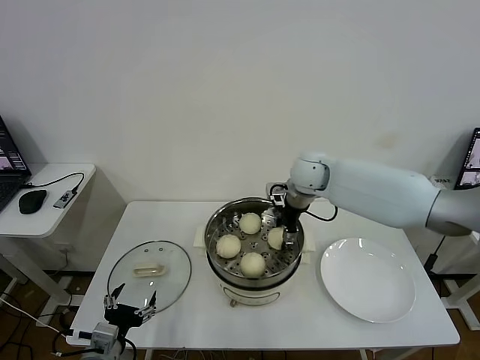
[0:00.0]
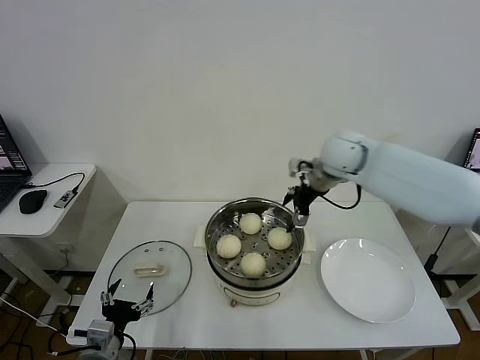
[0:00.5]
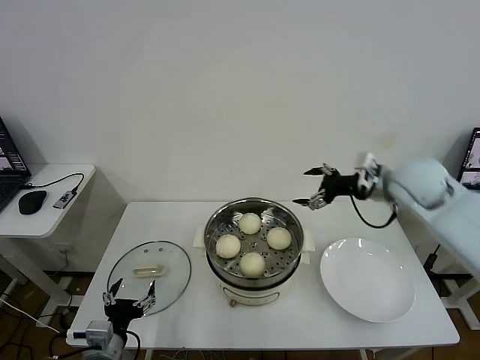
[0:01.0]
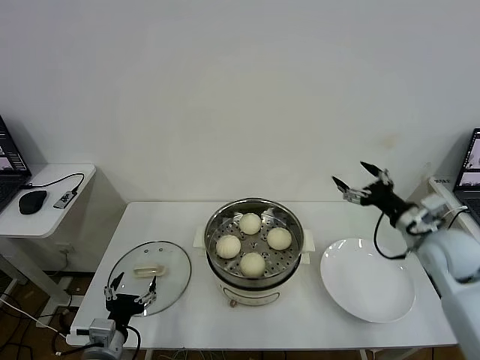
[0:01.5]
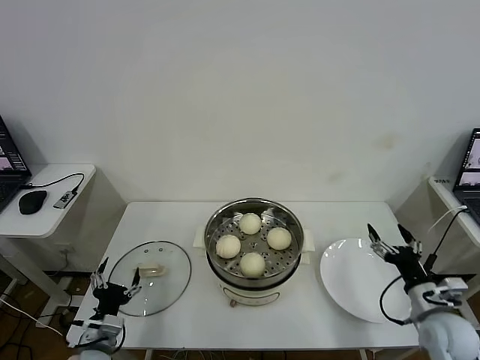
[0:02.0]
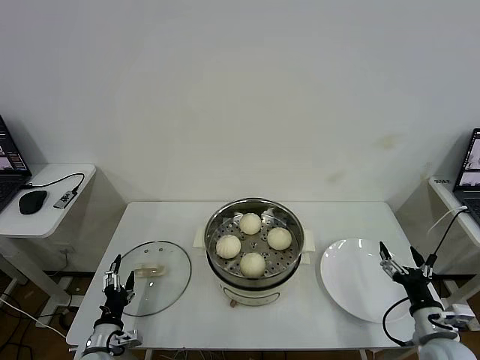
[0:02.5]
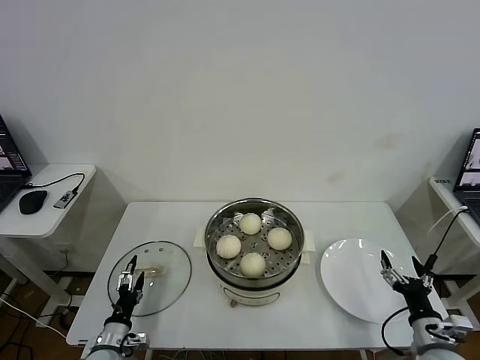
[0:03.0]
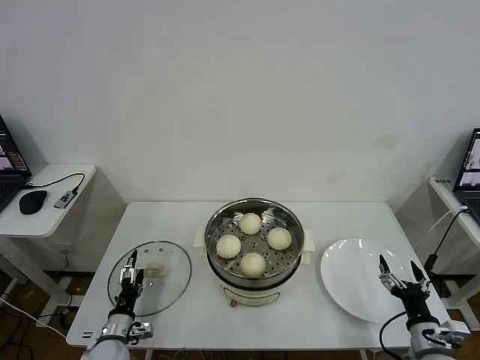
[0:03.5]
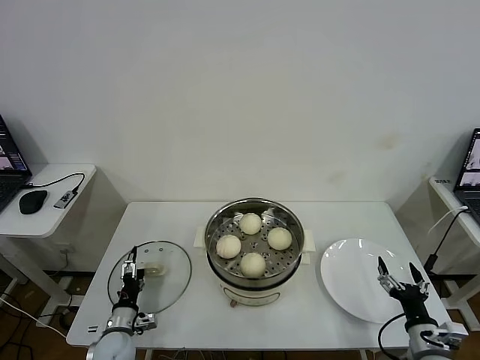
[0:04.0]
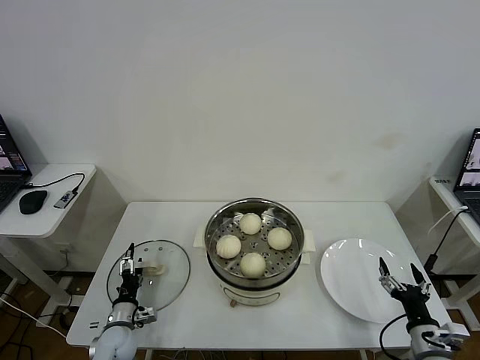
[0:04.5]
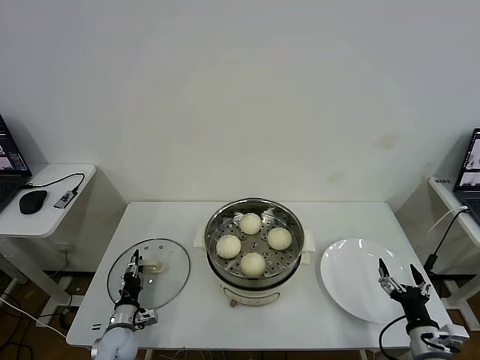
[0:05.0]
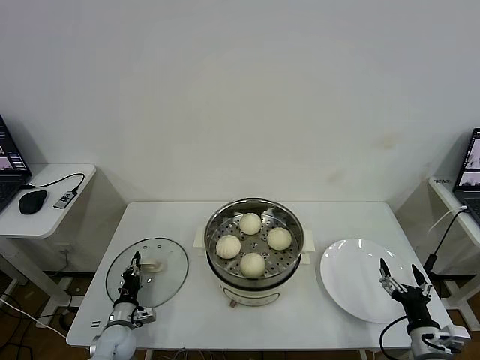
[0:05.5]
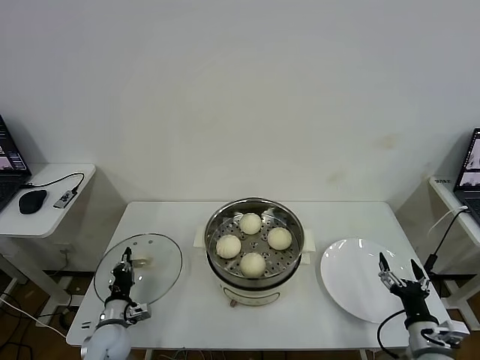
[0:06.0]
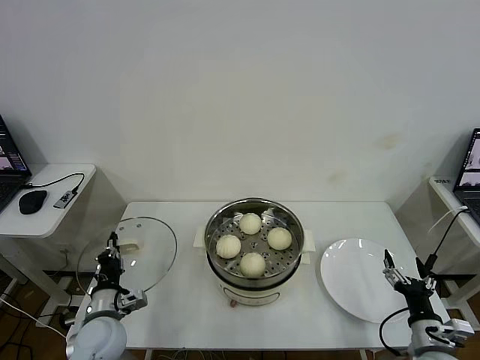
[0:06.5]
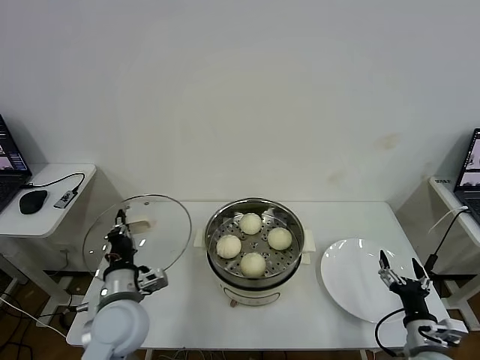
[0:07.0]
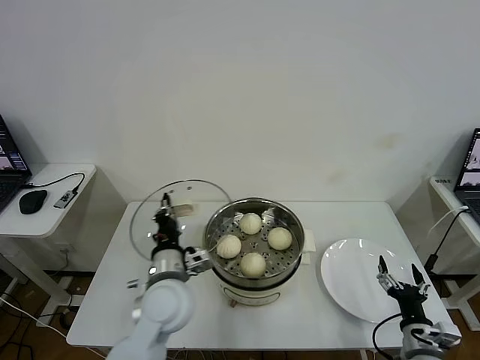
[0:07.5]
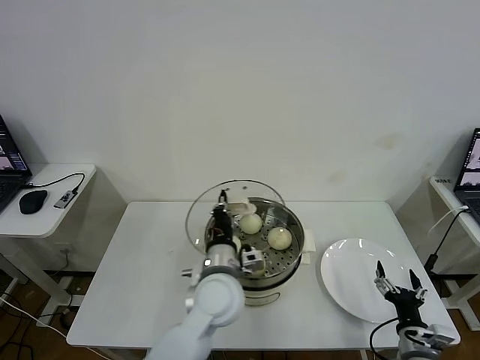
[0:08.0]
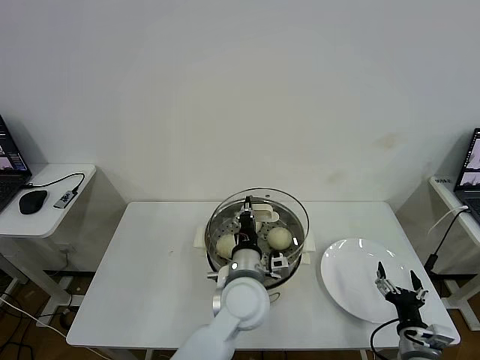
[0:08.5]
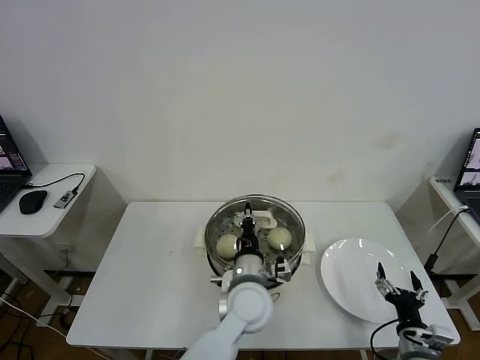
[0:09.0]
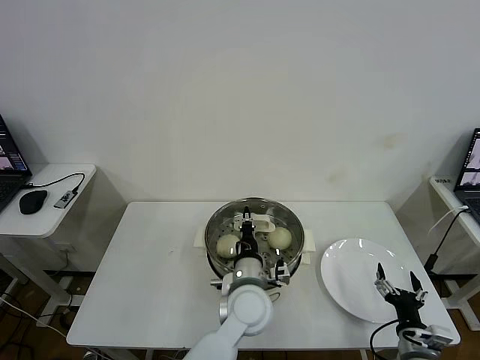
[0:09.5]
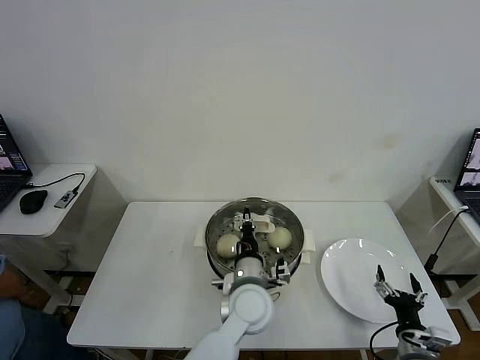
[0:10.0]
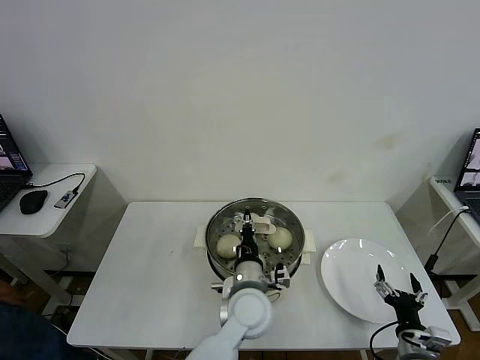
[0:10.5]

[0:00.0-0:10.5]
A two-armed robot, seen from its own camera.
Task of the whole recording: take steamed baozi put them in steamer then cover it.
Step, 0:00.5 to 0:05.5: Grasp the pot lid with left gripper.
0:00.0 to 0:02.0: The left gripper moves about 5 cm. The right gripper heads backward, to the right and downward, covering some 40 cm, and opens.
0:02.0 to 0:04.0: The right gripper moves backward and downward, approximately 10 cm, while the left gripper moves downward and forward, approximately 10 cm.
0:04.0 to 0:06.5: The left gripper shifts some 10 cm upward, and closes up.
0:06.5 to 0:08.5: The left gripper goes roughly 30 cm to the right.
0:08.5 to 0:10.5: There are only small adjustments of the grippers.

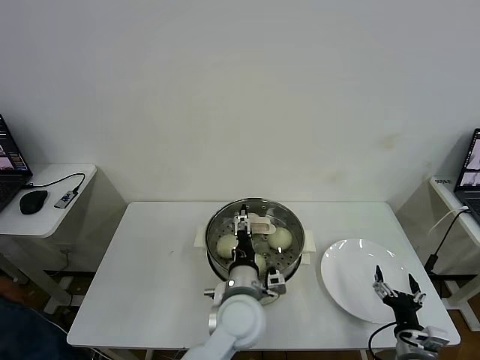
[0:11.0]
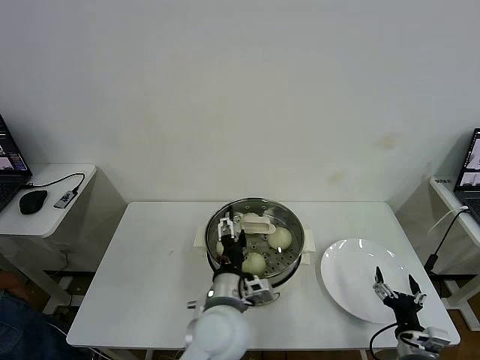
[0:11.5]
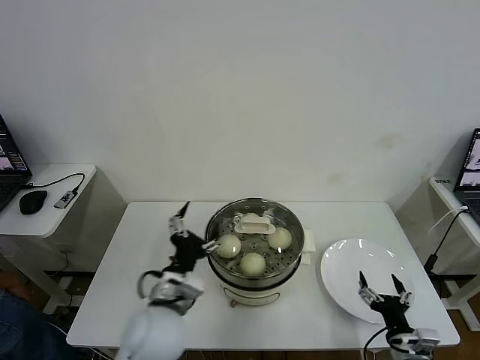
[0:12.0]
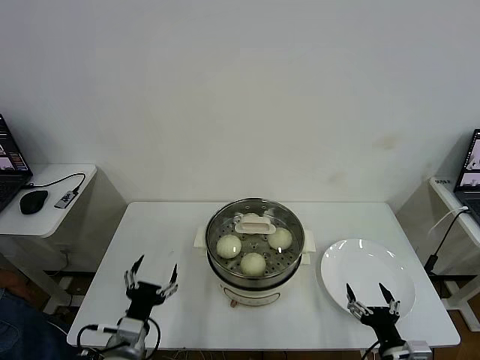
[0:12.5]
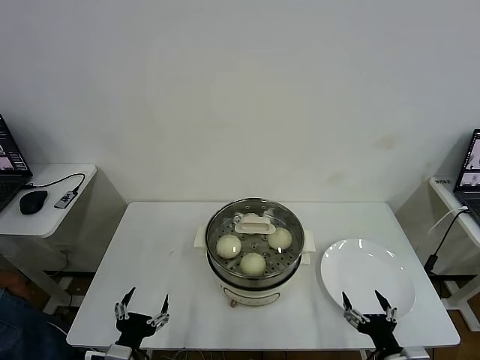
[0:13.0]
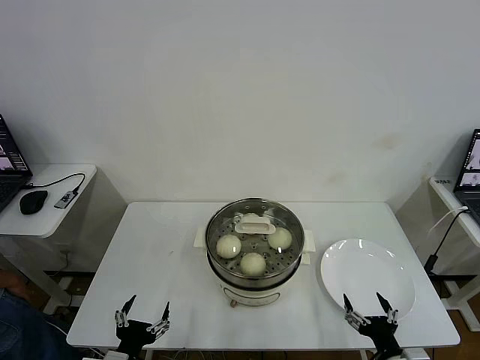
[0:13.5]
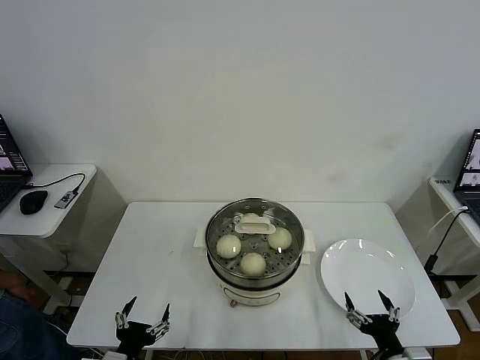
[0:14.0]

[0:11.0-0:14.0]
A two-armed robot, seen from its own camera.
Task of the whole recording: take steamed baozi put them in steamer then cover it.
0:11.0 to 0:12.5: The left gripper shifts some 25 cm to the left, while the right gripper moves about 5 cm.
0:12.5 to 0:14.0: The left gripper heads backward, covering some 5 cm.

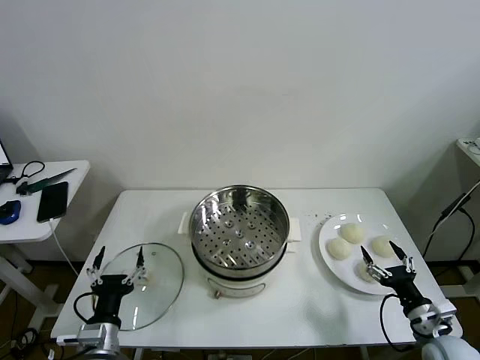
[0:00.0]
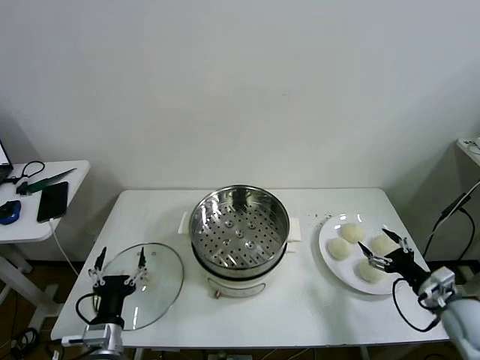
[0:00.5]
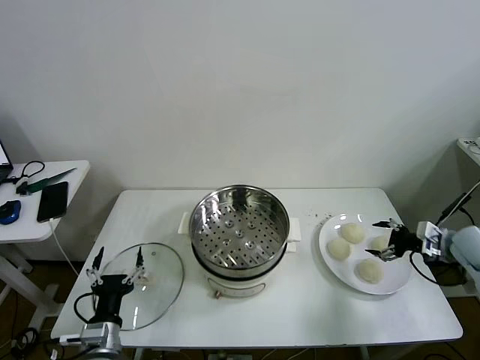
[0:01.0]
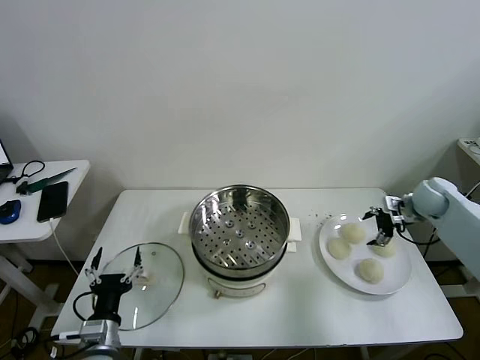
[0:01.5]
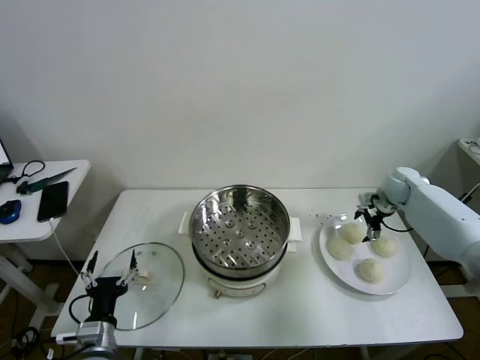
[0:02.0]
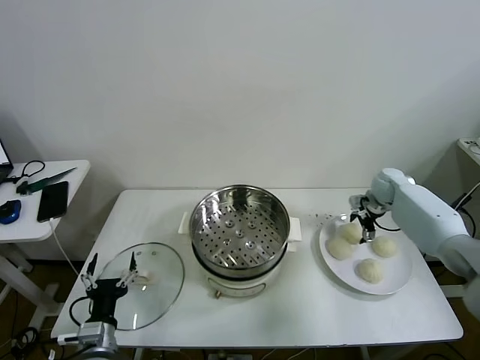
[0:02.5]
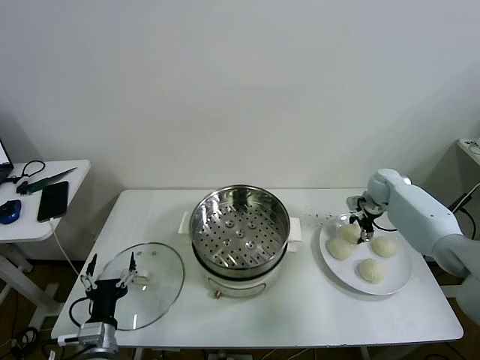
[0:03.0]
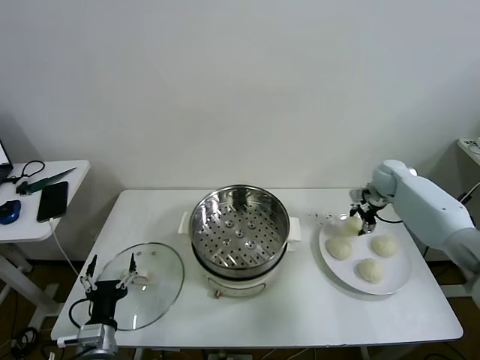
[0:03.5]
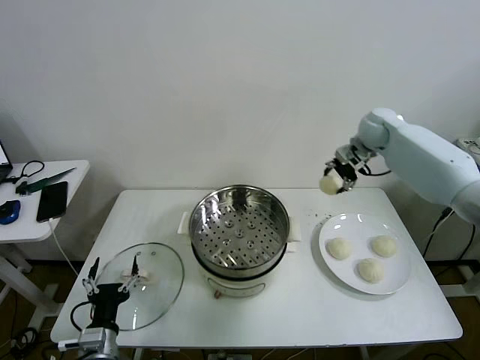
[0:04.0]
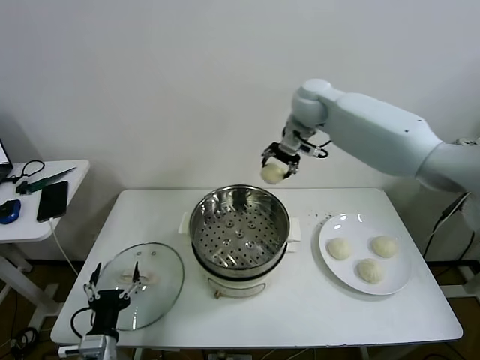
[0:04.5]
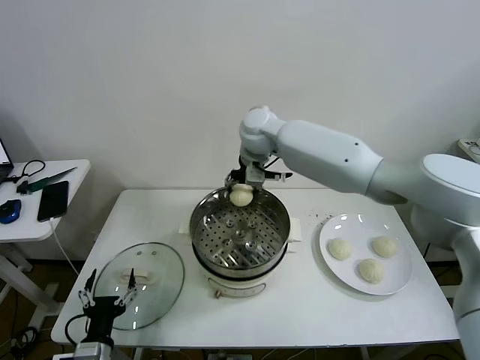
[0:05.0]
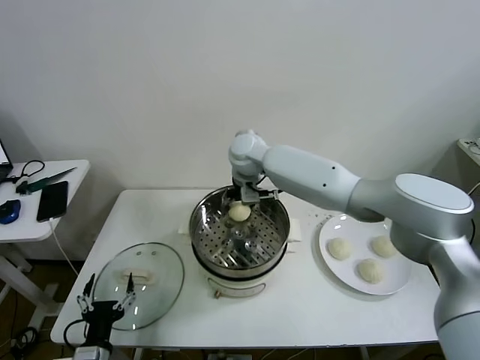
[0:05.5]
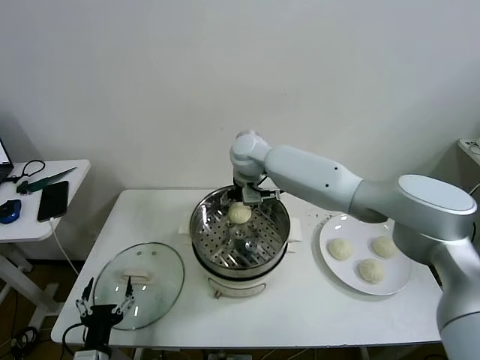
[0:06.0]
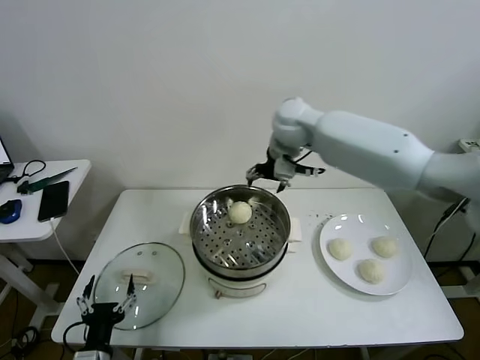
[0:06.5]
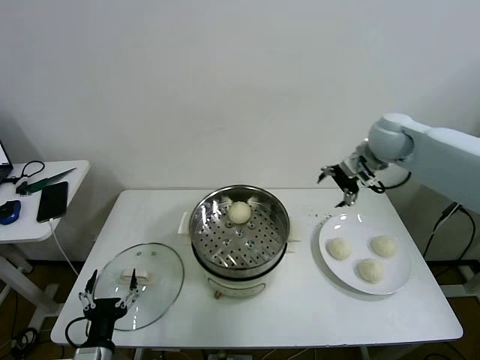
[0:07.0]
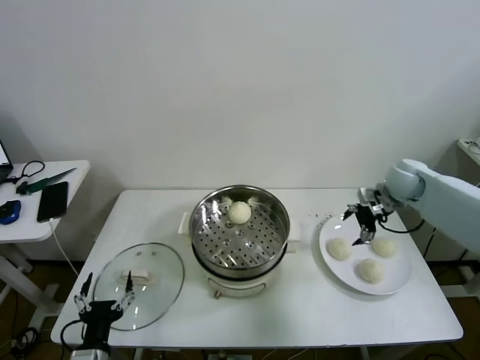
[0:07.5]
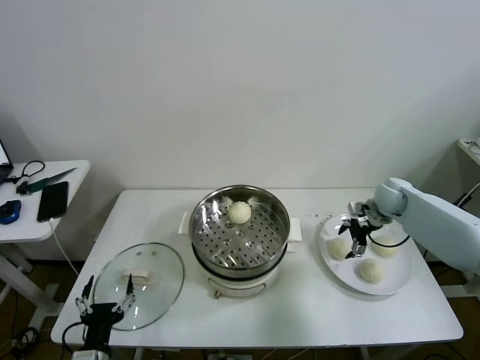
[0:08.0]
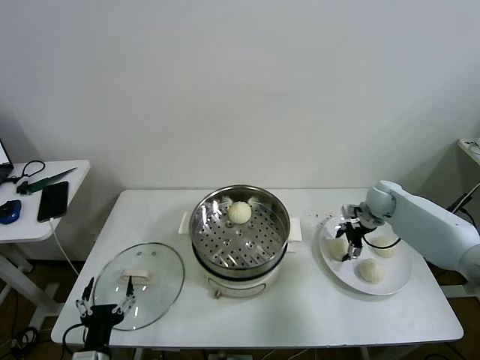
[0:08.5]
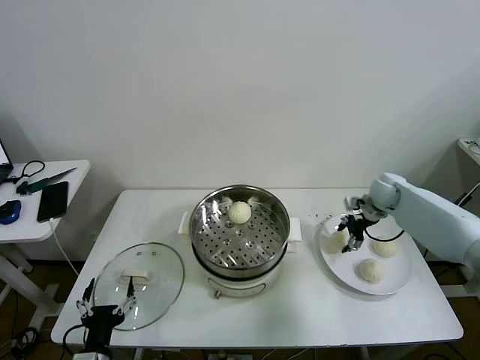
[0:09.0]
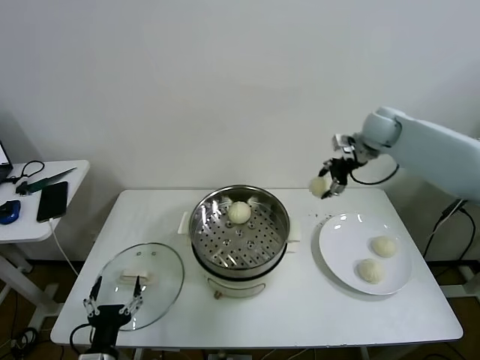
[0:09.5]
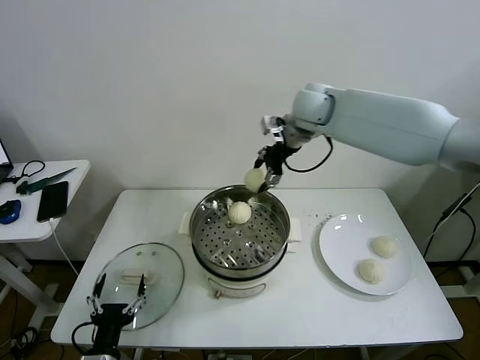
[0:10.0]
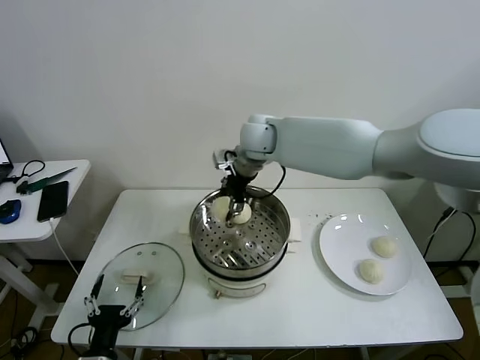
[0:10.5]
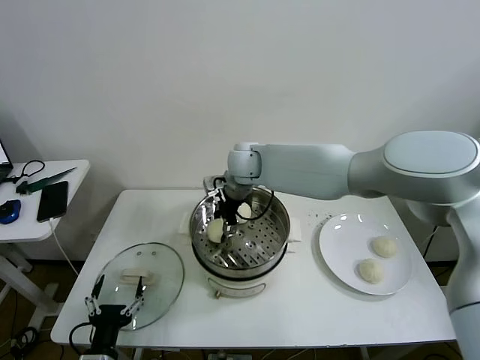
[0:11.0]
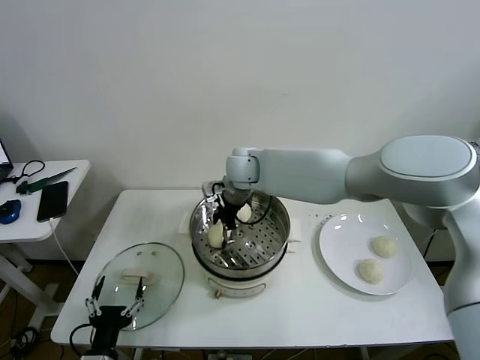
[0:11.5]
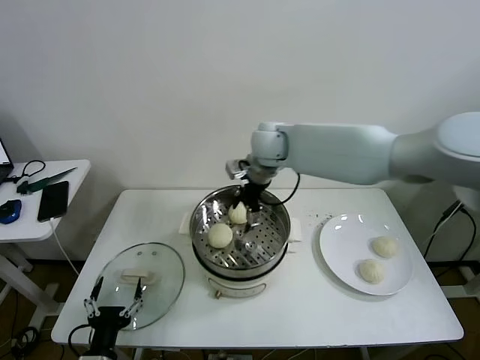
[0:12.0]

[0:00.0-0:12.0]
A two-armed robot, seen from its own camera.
Task of the whole recording: take steamed baozi put them in steamer then cover it.
Step, 0:00.0 to 0:03.0: Grasp the baozi in the plate with right gripper.
Step, 0:03.5 to 0:05.5: Place the baozi on the steamer with right gripper.
Step, 0:06.0 to 0:08.5: Grasp the baozi in the plate with right gripper.
Step, 0:09.0 to 0:11.5: Place the baozi on the steamer with right gripper.
0:02.0 to 0:04.0: The right gripper is displaced upward and to the left by roughly 20 cm, and closes its fingers.
0:04.0 to 0:06.0: The right gripper moves to the left, some 30 cm, and opens.
0:06.0 to 0:08.0: The right gripper goes roughly 35 cm to the right.
0:08.0 to 0:10.0: The right gripper is displaced to the left and upward by about 35 cm, and closes up.
0:10.0 to 0:12.0: The right gripper shifts about 10 cm downward and to the left, and opens its fingers.
